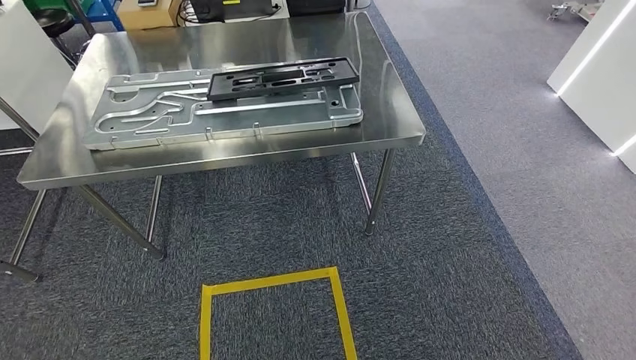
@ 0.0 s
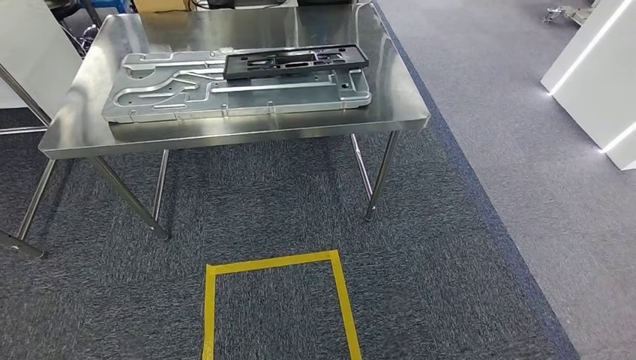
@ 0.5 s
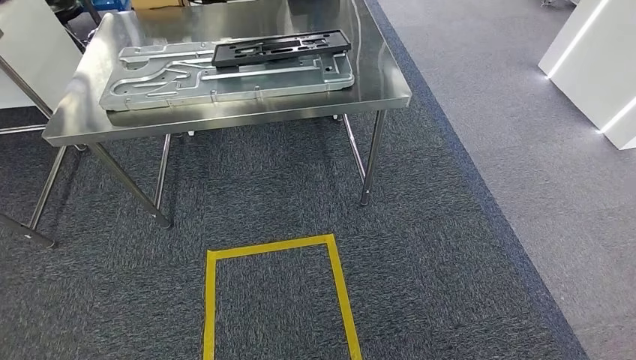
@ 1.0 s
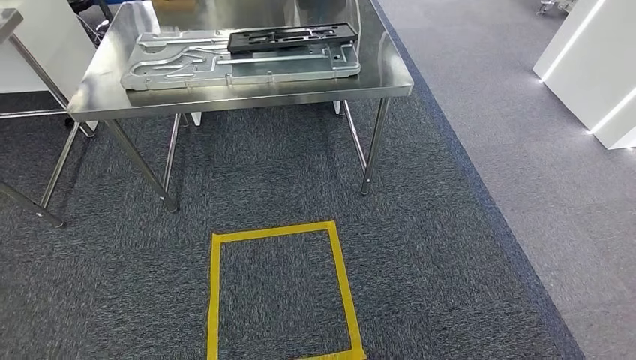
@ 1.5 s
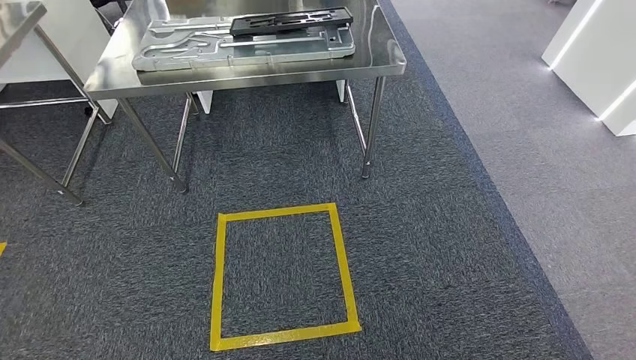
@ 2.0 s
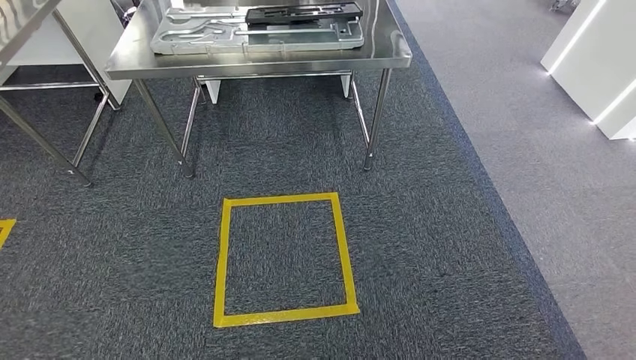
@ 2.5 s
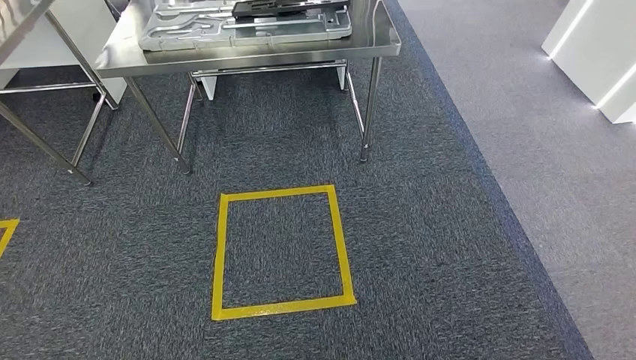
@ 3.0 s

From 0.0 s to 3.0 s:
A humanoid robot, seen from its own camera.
Step, from 0.5 s to 3.0 s: Move to the initial position of the shelf.

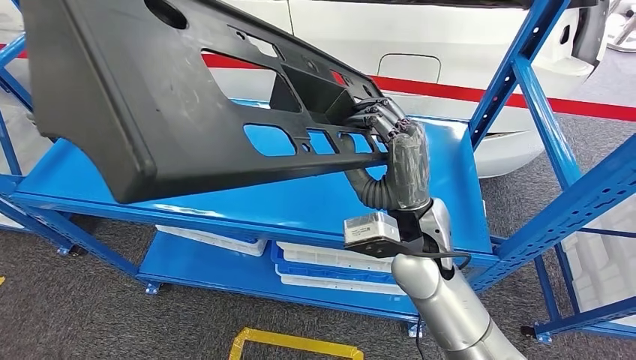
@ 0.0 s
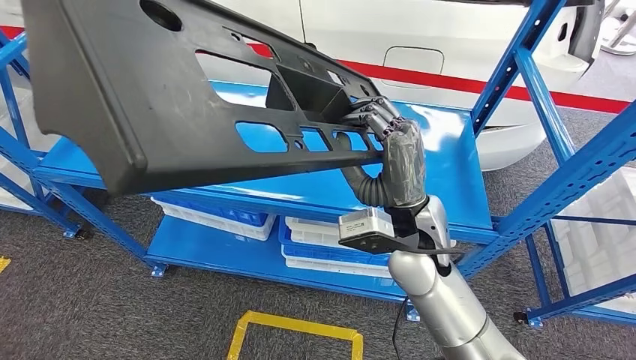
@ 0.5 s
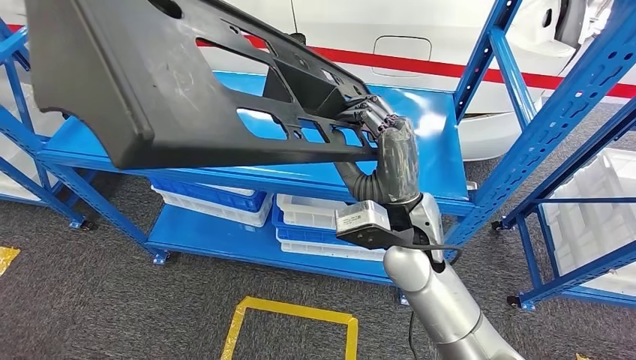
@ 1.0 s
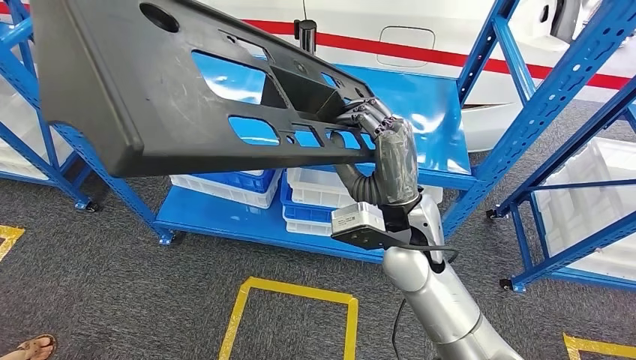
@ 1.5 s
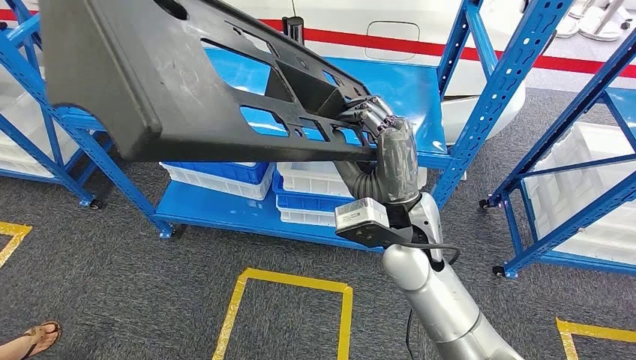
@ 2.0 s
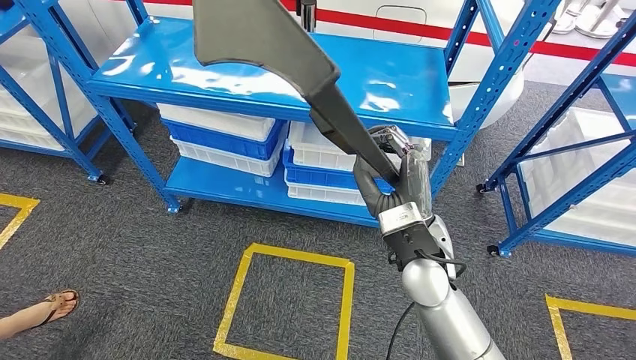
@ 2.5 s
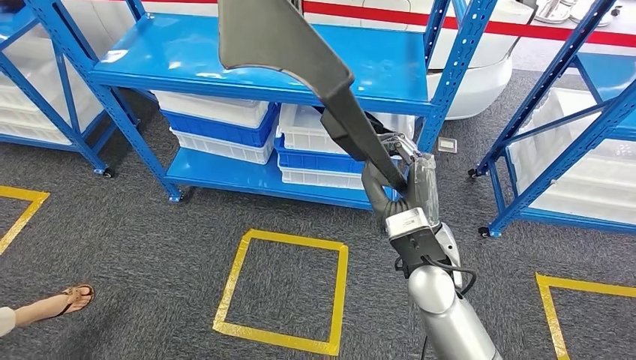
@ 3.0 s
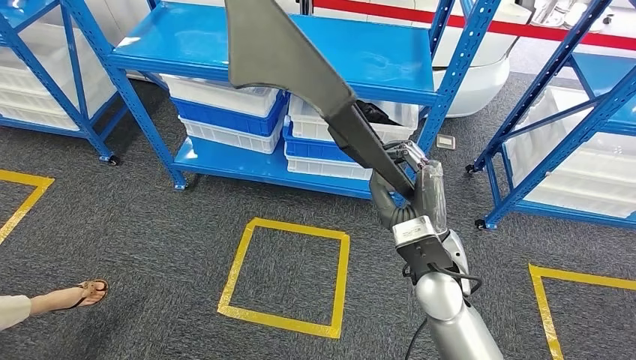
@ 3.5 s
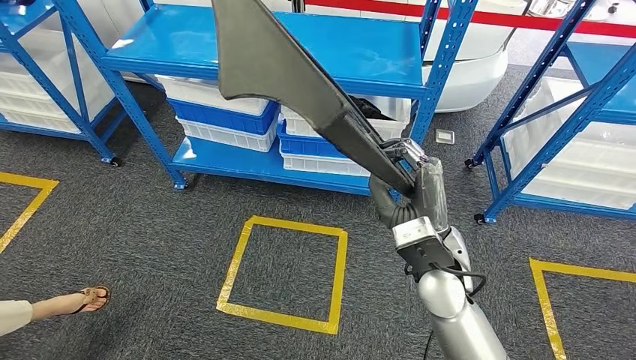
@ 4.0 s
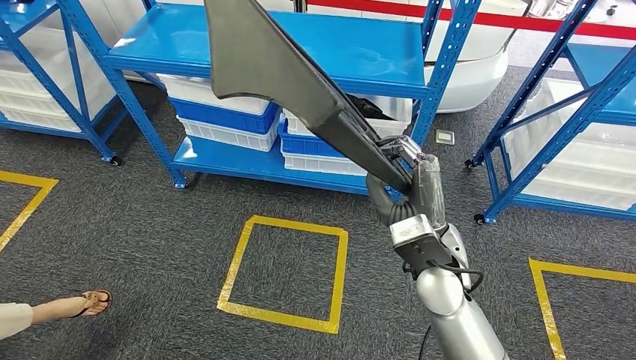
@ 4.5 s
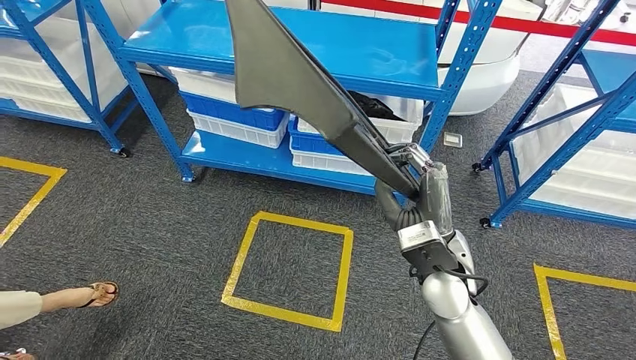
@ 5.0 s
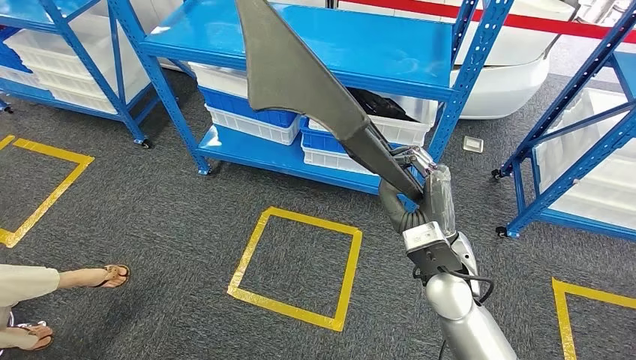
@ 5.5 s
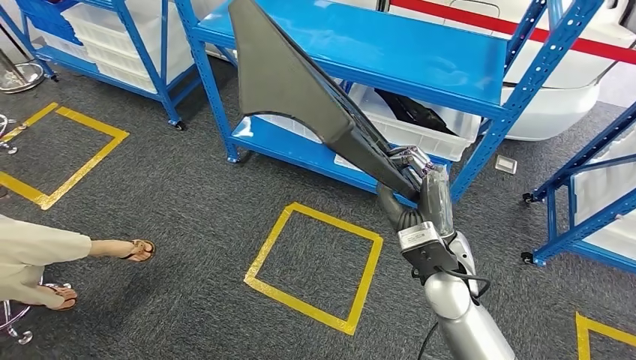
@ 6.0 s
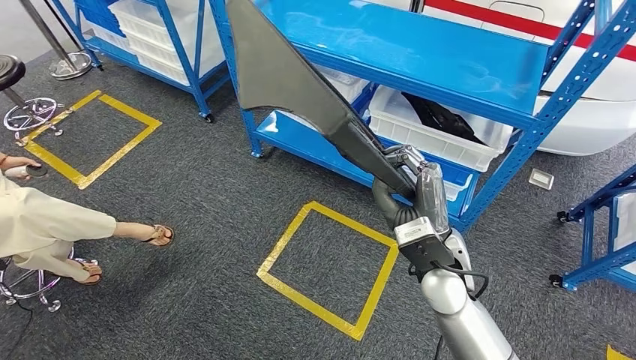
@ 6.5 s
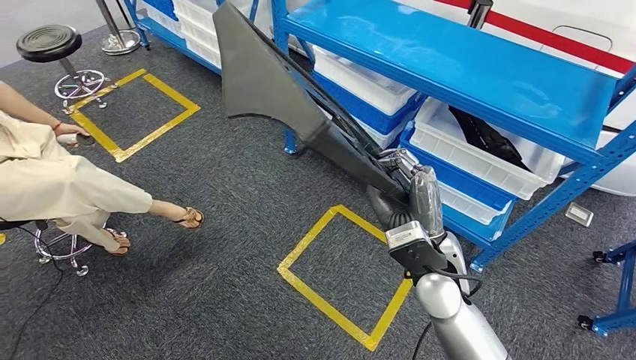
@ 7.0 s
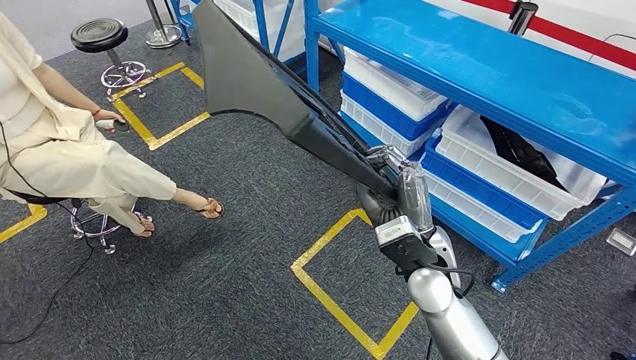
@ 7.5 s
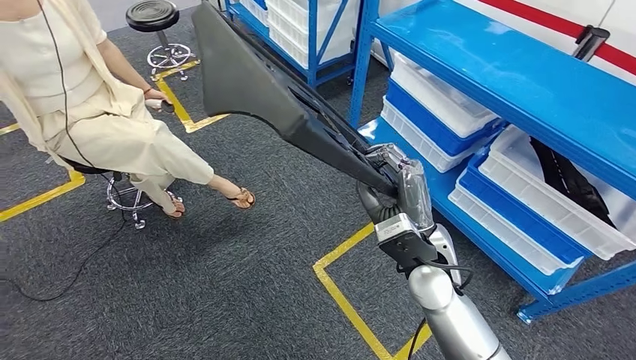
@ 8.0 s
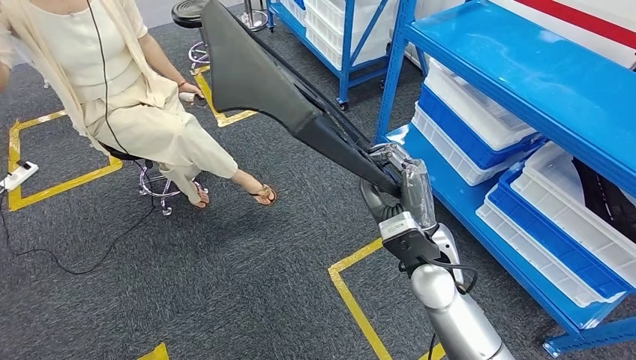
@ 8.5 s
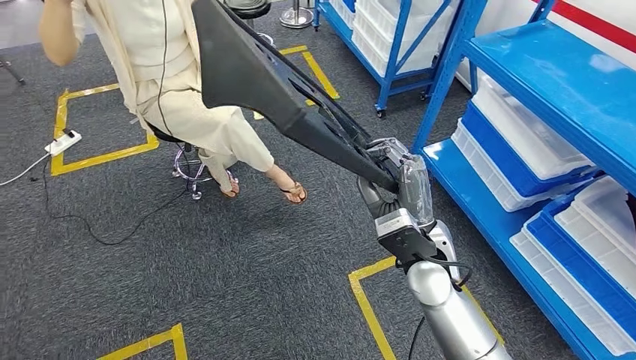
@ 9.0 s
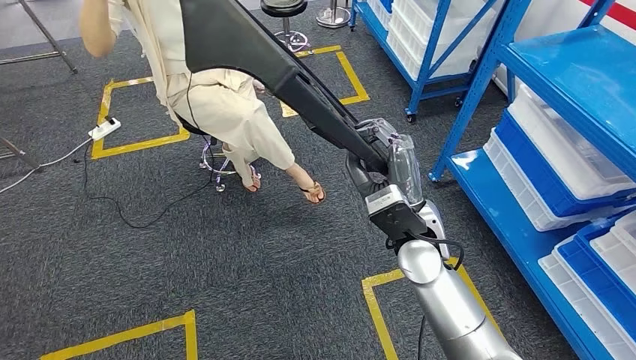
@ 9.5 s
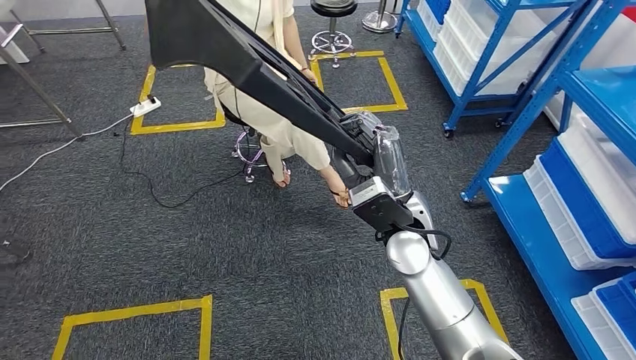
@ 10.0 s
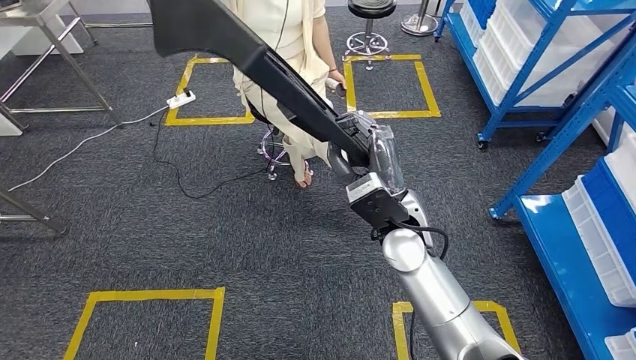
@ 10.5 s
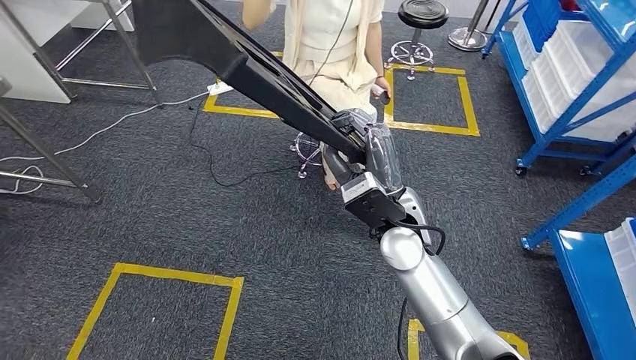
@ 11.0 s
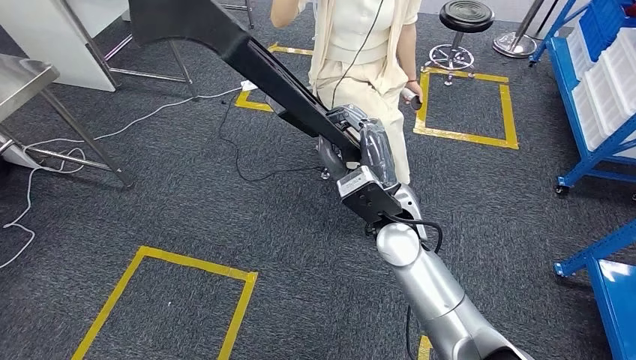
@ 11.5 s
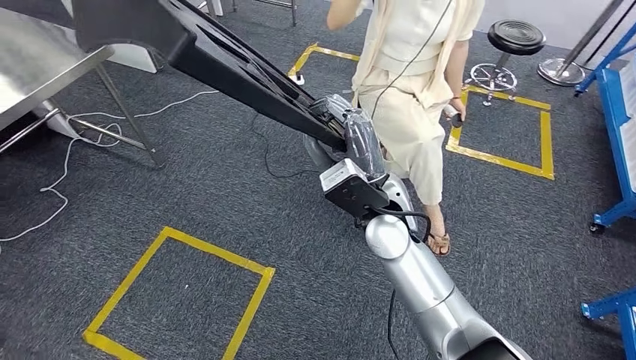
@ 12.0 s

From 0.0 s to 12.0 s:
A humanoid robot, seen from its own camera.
Step, from 0.0 s to 2.5 s: Pick up the large material from the shelf.

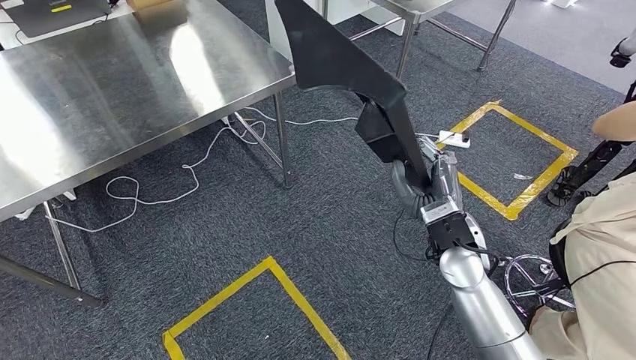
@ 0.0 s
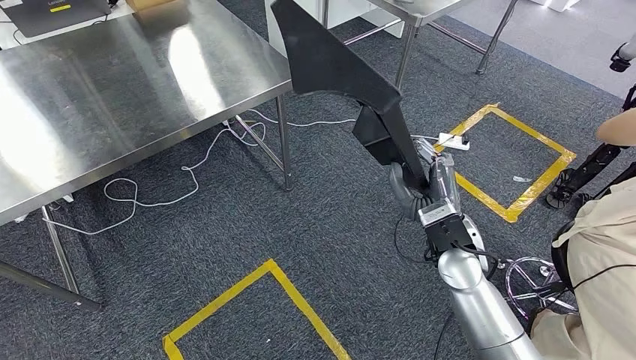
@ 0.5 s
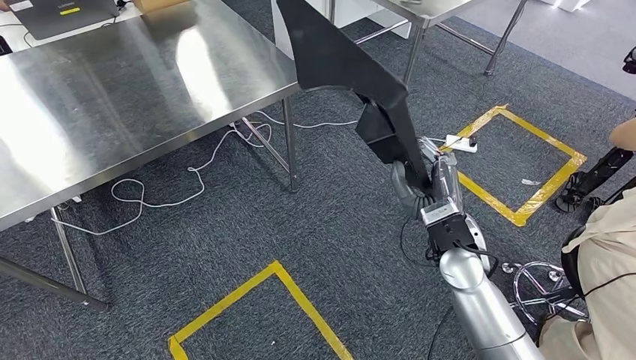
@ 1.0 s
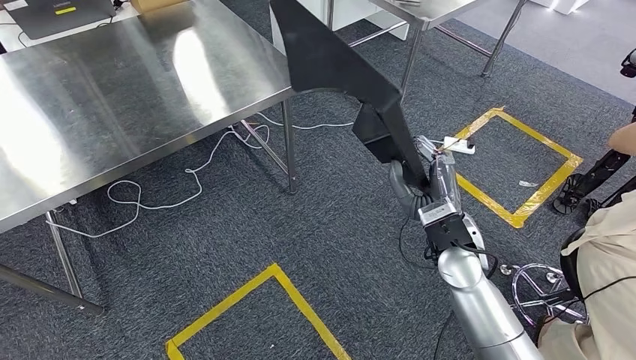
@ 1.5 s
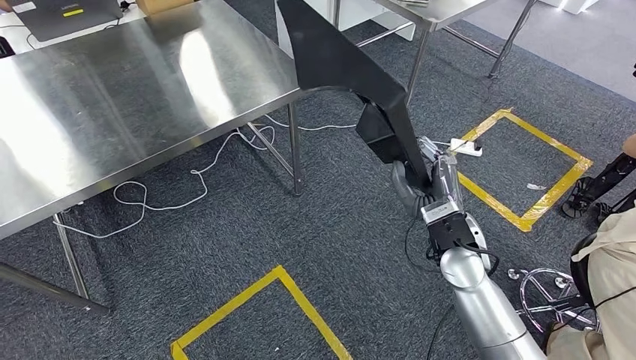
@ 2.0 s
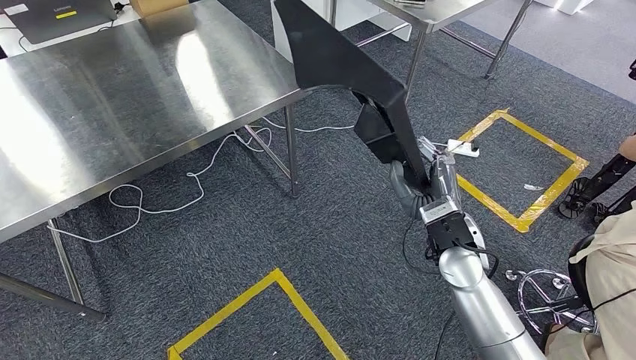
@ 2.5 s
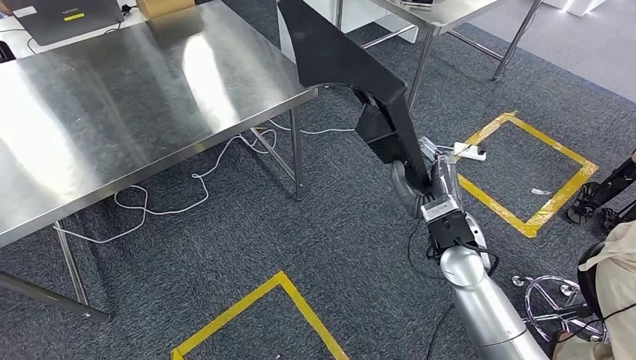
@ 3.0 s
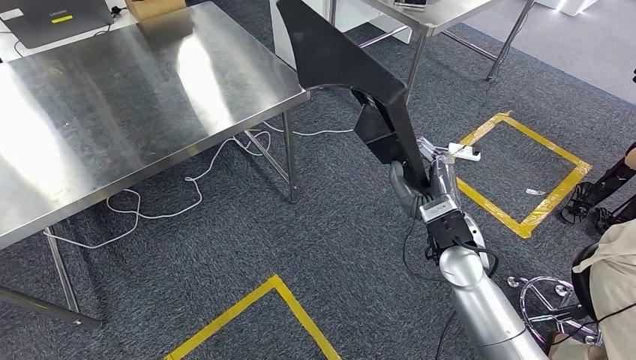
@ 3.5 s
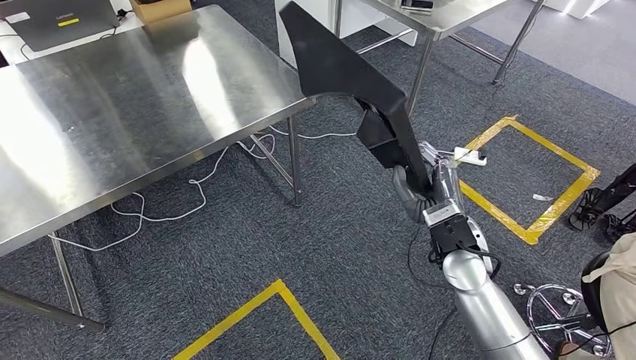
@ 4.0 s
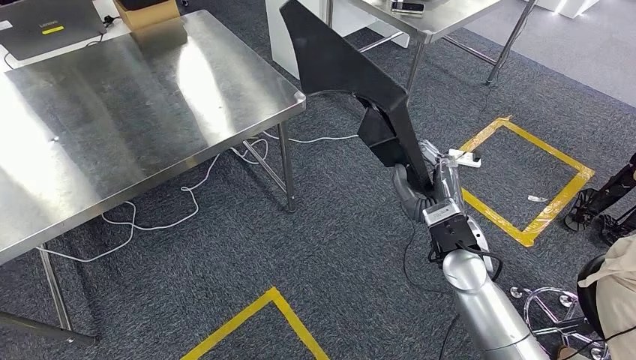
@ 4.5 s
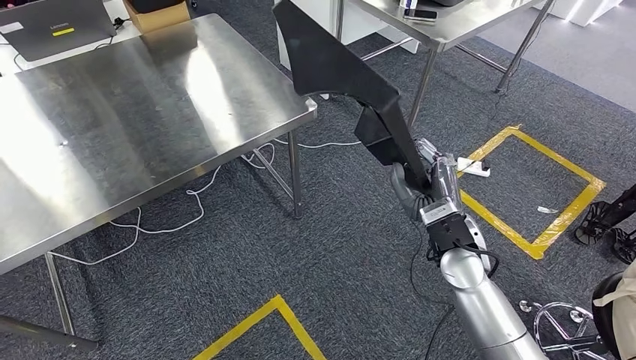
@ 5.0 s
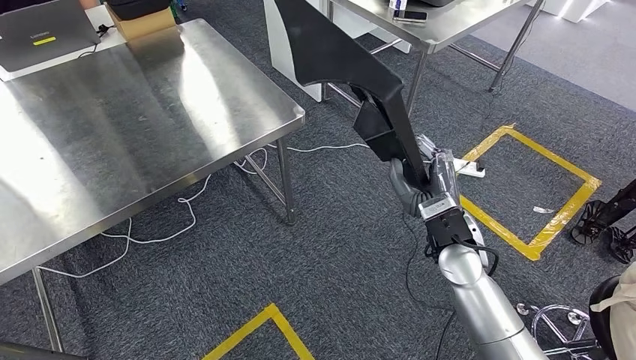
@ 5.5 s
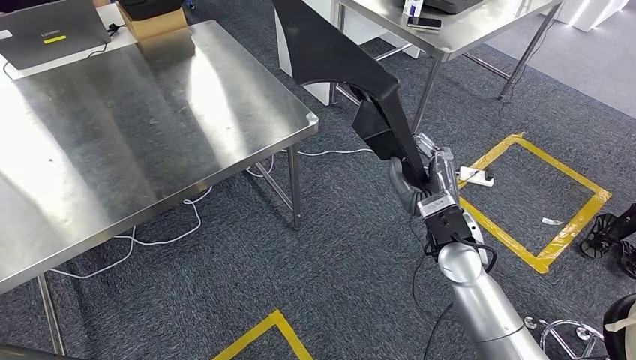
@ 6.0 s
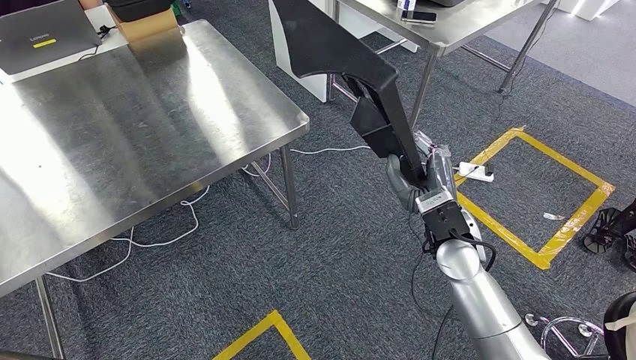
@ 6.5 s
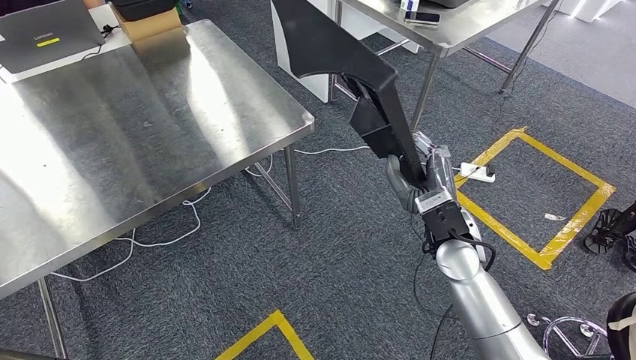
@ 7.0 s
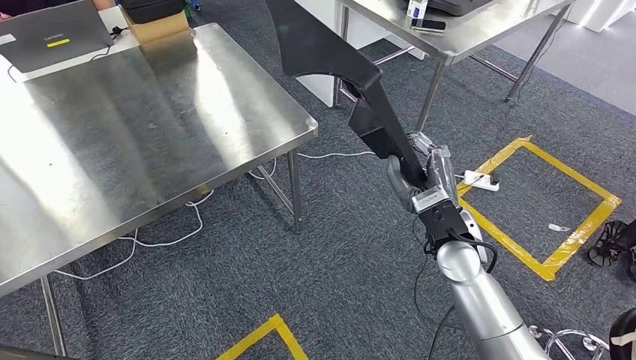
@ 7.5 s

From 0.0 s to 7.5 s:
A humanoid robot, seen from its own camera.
Step, from 0.0 s to 6.0 s: Move the large material to the workbench.
